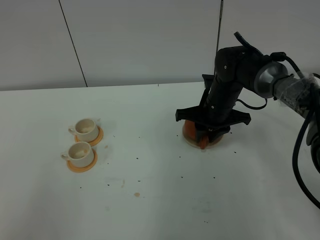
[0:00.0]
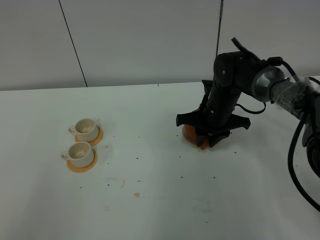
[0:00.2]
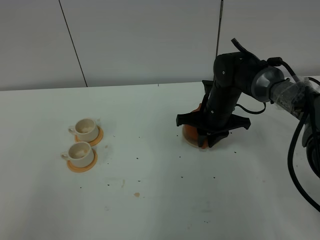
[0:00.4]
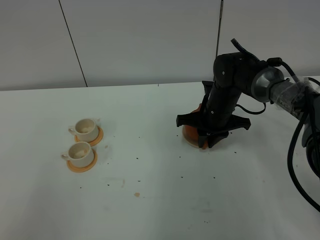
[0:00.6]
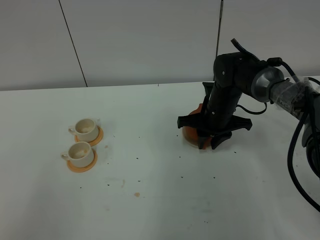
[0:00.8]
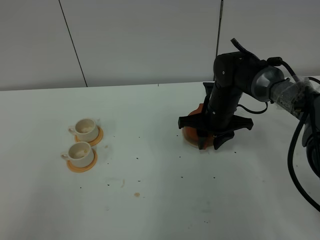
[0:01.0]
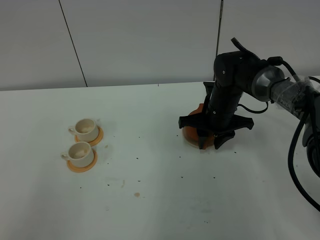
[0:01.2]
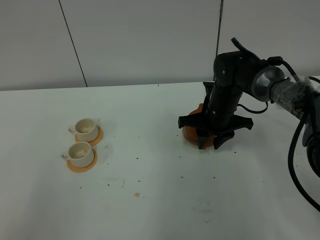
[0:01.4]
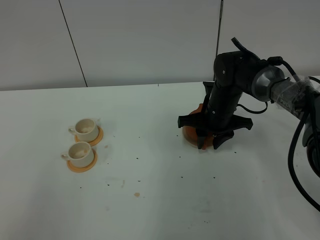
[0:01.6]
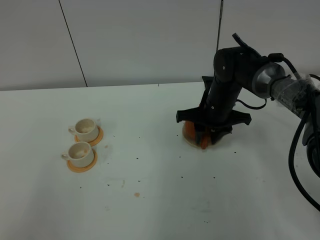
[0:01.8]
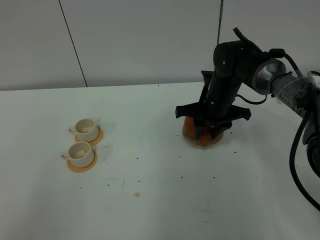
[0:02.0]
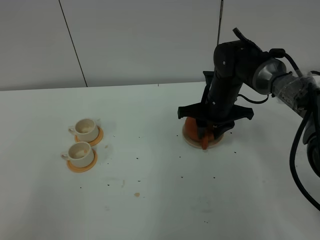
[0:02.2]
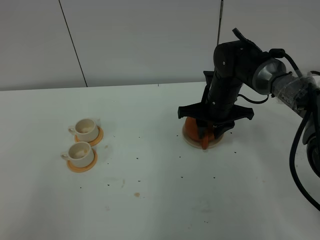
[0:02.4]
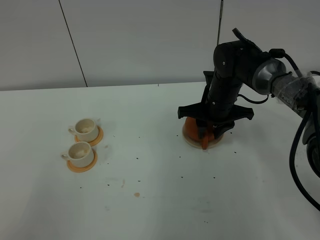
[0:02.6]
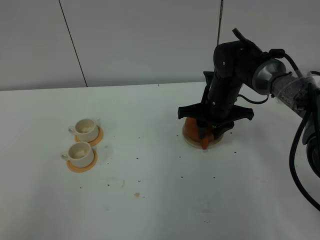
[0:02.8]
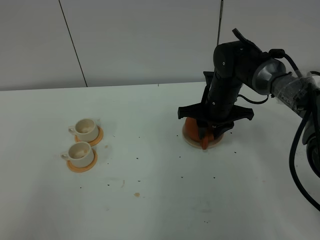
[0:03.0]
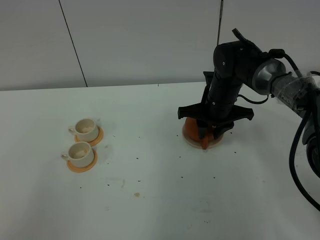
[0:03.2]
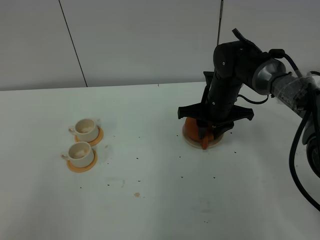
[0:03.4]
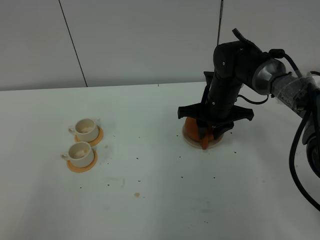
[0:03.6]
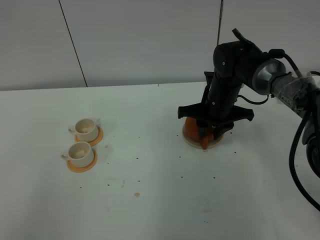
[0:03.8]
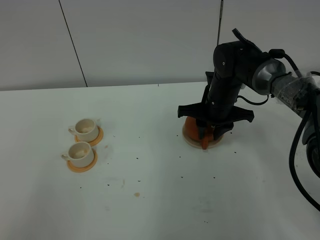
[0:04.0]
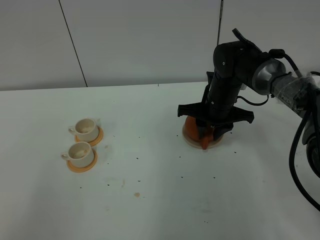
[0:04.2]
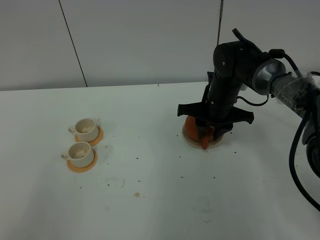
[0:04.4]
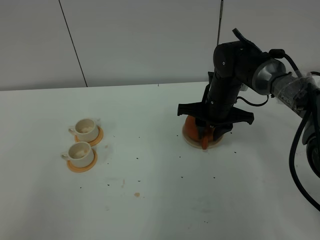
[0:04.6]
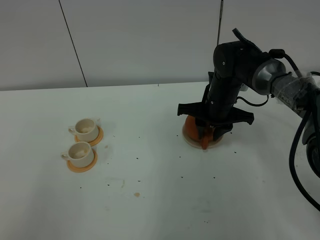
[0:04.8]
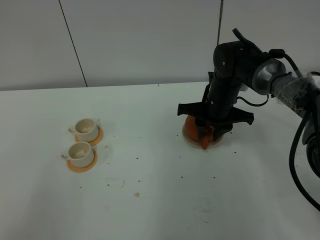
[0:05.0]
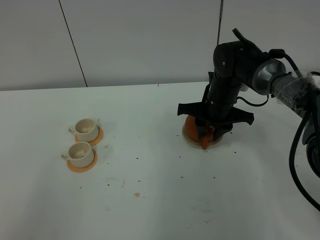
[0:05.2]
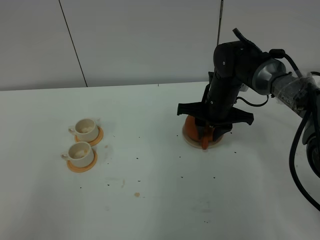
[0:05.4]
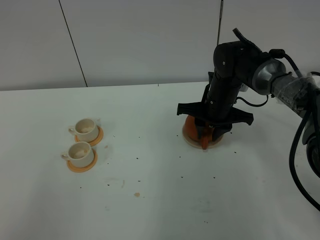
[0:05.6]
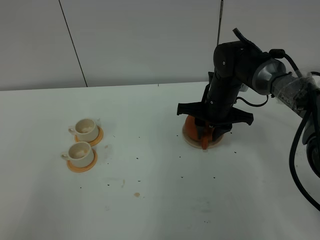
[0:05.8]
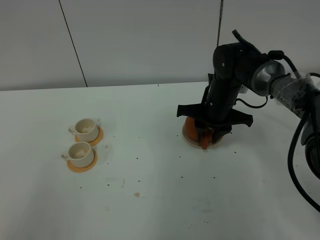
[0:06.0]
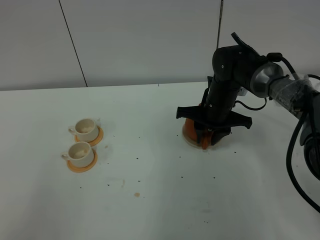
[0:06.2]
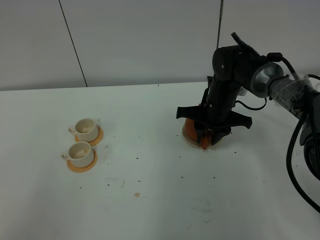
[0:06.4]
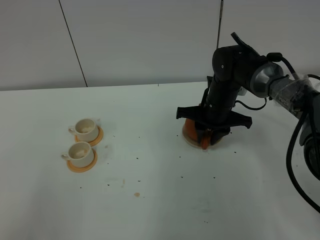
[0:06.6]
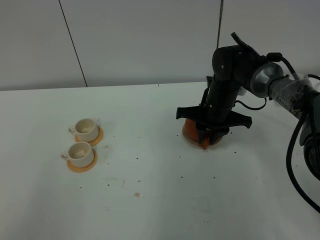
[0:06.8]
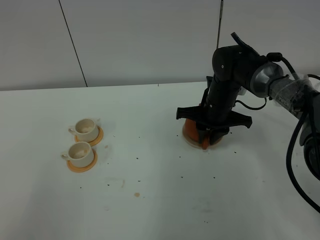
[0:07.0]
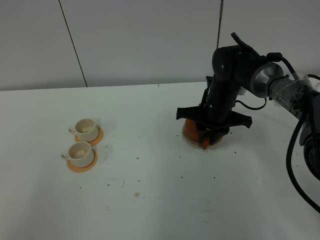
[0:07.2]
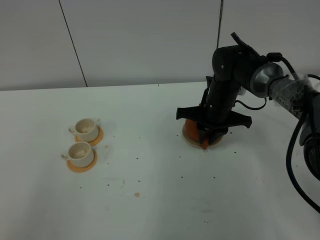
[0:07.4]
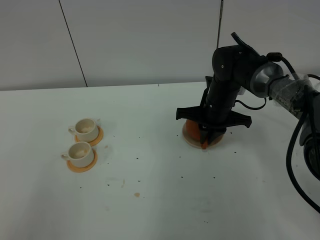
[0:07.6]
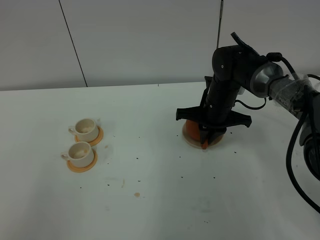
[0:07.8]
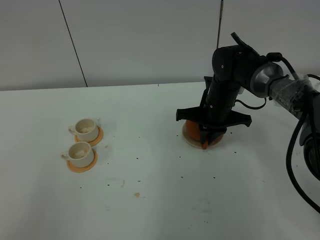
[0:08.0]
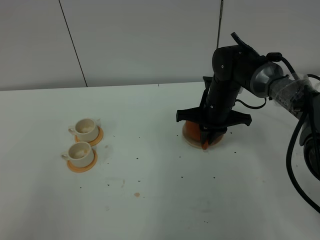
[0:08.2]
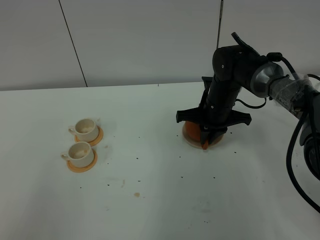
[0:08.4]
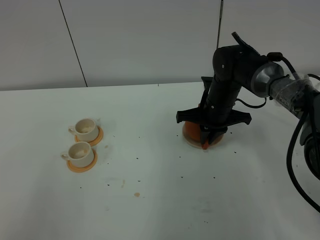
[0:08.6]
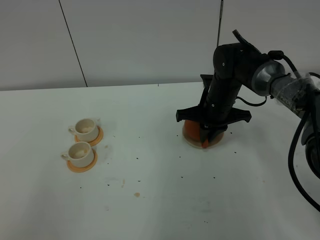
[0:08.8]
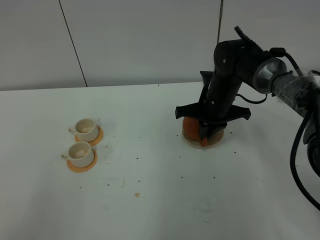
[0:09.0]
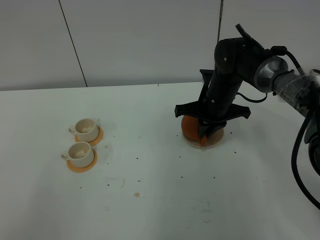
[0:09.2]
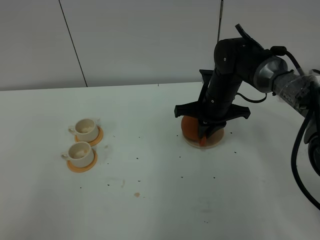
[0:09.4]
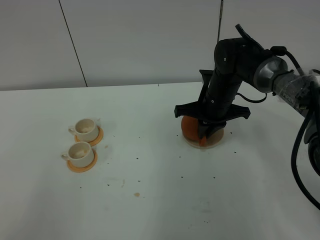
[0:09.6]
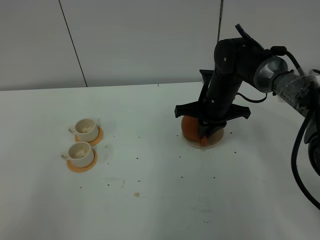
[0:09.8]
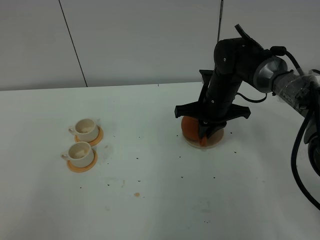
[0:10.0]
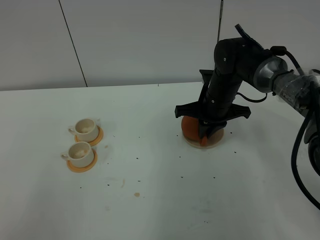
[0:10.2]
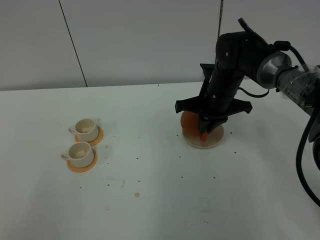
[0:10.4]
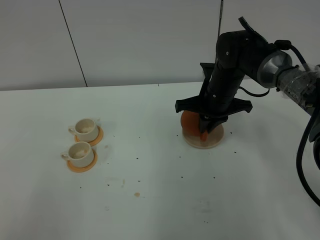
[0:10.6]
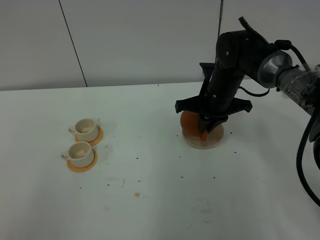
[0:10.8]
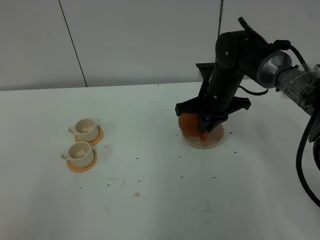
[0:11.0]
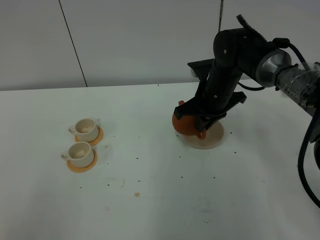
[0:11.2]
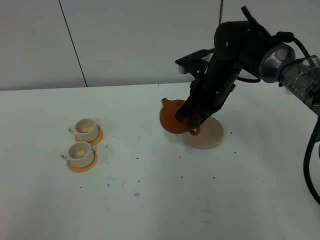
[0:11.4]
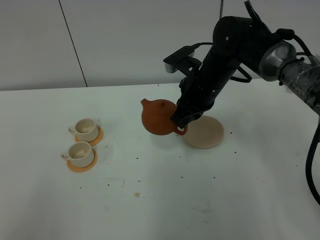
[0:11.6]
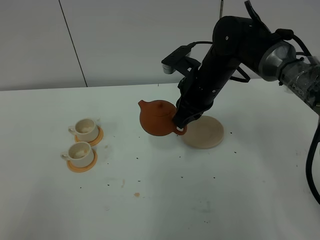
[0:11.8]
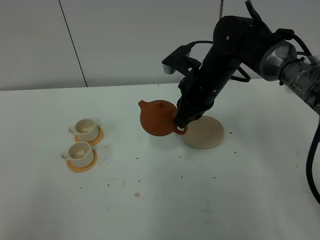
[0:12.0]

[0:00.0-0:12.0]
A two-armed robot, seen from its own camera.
Task of the whole recording: grasp the brown teapot and pour the tea into the two white teacups one by one, put the brown teapot back in its original place.
Step, 0:00.0 to 0:11.0: Pick up the teapot with the right gripper.
0:00.0 to 0:01.6: Both grippers stay put.
0:01.6 to 0:03.0: The grippers make only small movements.
0:04.4 to 0:06.0: Both grippers stay put.
0:06.0 to 0:07.6: The right gripper closes.
0:07.6 to 0:10.4: The grippers stay close to where they were, moving slightly.
0:10.4 to 0:12.0: The right gripper changes place by approximately 5 cm.

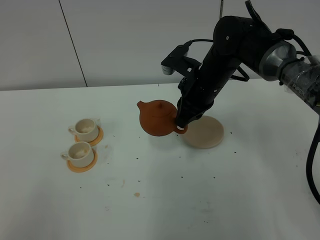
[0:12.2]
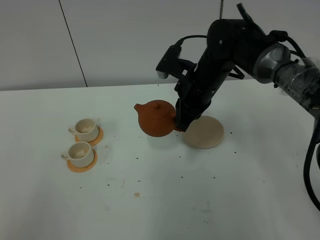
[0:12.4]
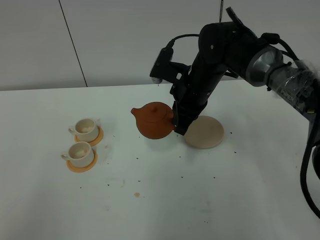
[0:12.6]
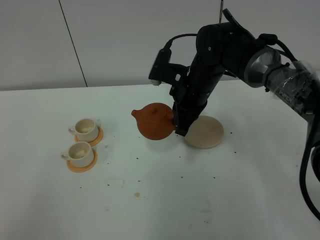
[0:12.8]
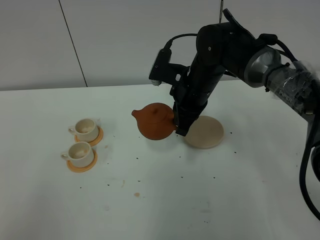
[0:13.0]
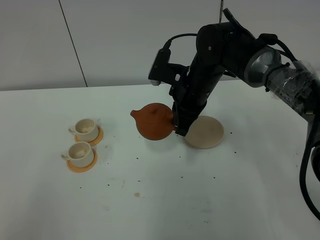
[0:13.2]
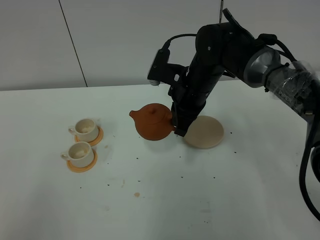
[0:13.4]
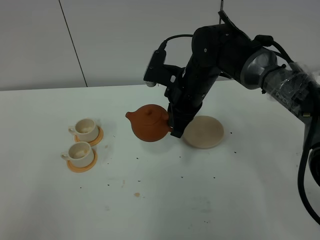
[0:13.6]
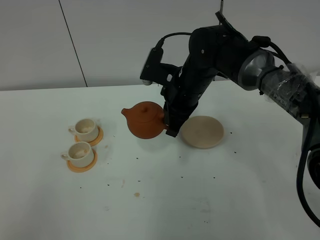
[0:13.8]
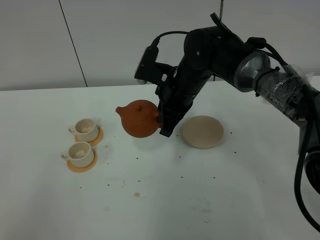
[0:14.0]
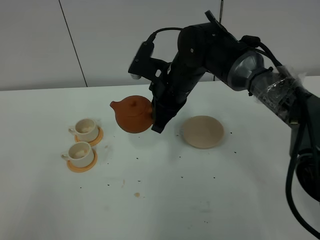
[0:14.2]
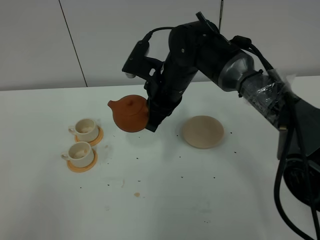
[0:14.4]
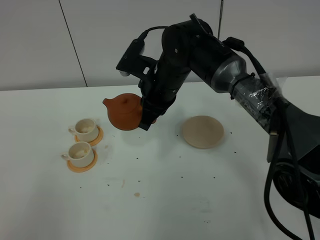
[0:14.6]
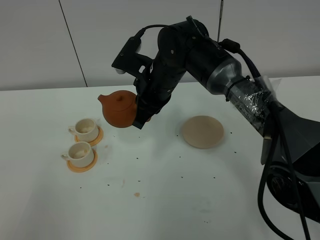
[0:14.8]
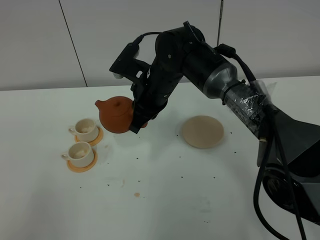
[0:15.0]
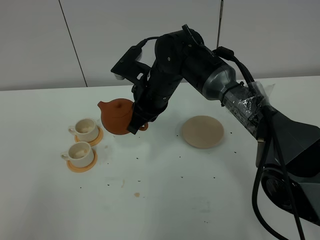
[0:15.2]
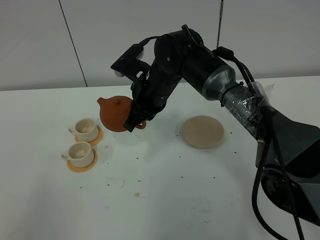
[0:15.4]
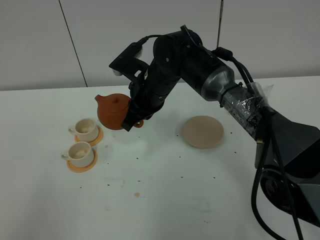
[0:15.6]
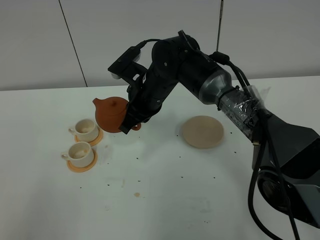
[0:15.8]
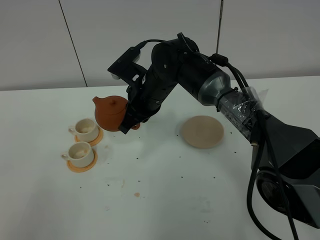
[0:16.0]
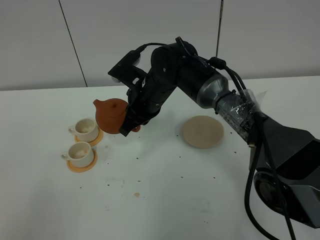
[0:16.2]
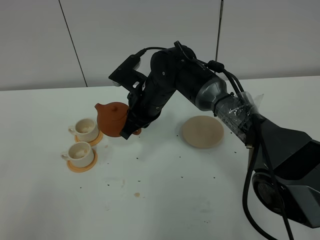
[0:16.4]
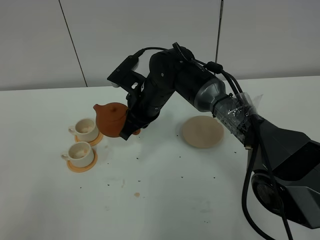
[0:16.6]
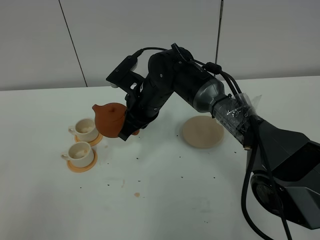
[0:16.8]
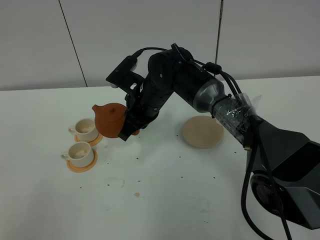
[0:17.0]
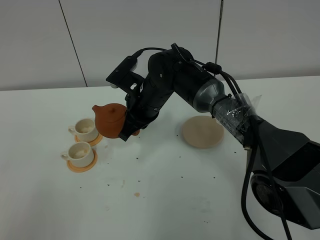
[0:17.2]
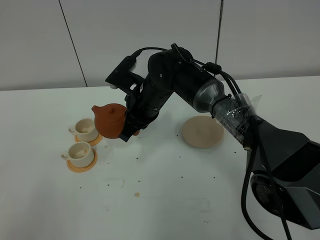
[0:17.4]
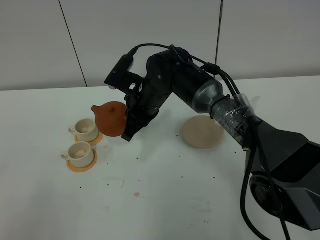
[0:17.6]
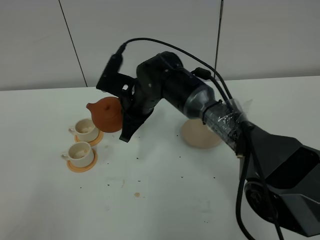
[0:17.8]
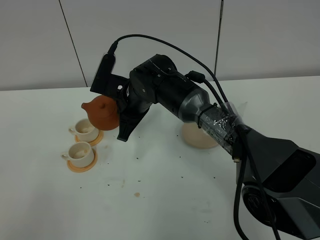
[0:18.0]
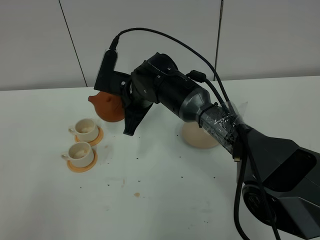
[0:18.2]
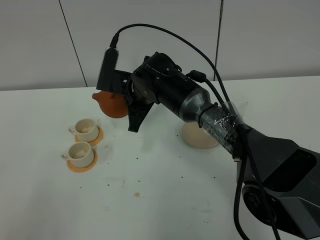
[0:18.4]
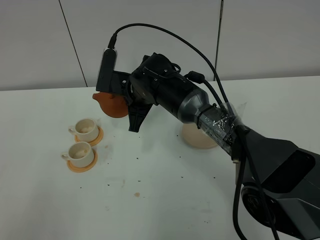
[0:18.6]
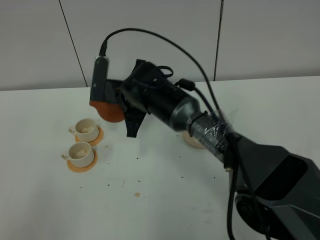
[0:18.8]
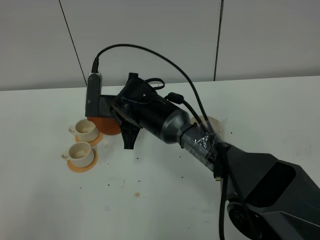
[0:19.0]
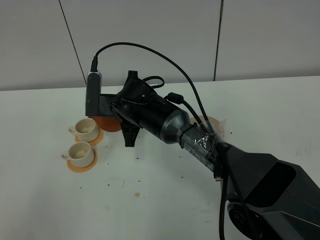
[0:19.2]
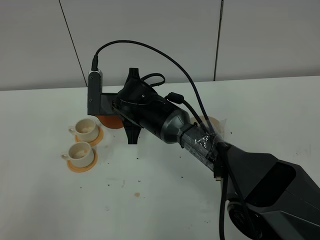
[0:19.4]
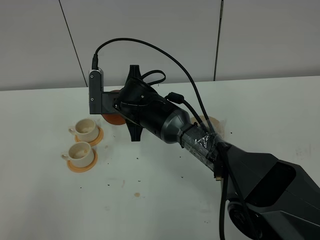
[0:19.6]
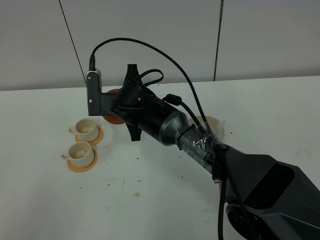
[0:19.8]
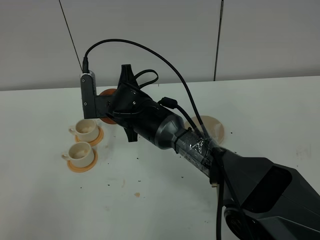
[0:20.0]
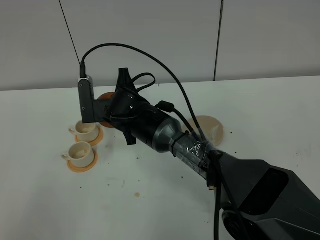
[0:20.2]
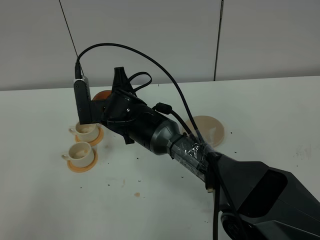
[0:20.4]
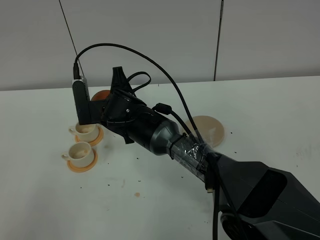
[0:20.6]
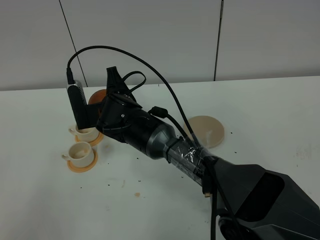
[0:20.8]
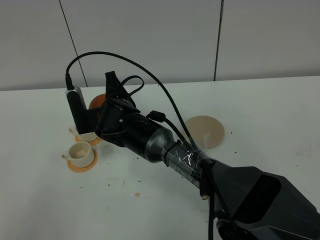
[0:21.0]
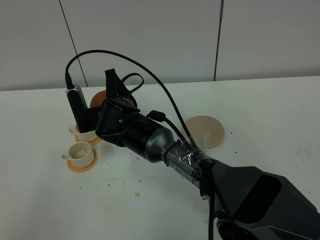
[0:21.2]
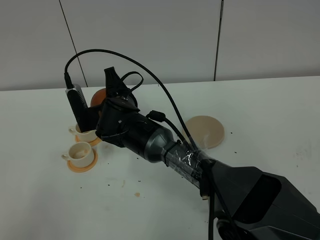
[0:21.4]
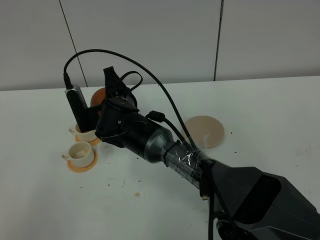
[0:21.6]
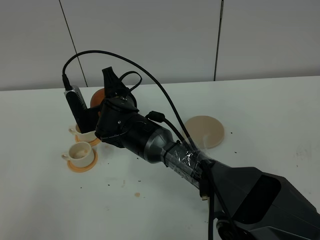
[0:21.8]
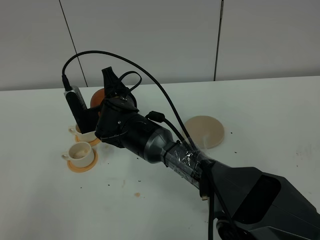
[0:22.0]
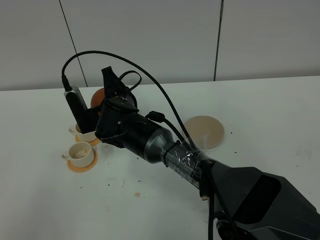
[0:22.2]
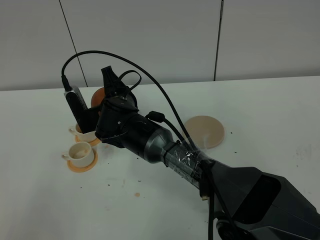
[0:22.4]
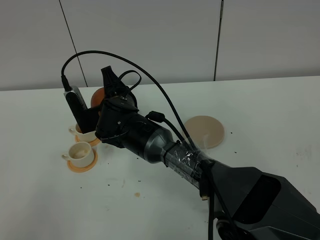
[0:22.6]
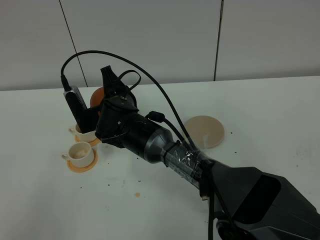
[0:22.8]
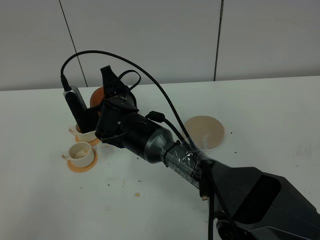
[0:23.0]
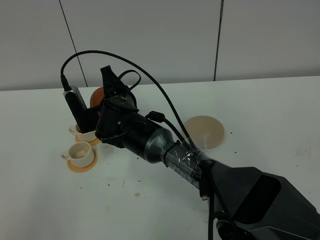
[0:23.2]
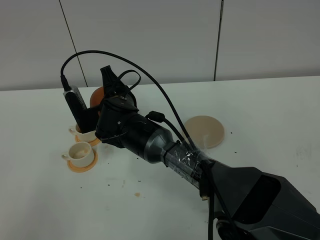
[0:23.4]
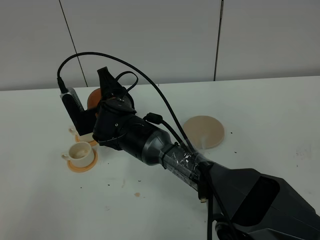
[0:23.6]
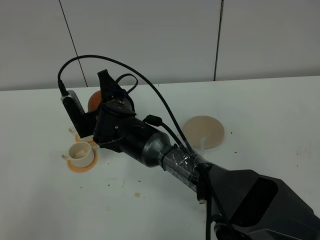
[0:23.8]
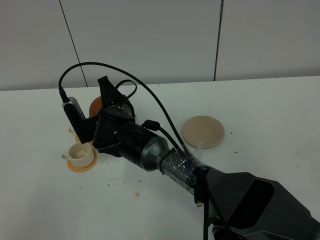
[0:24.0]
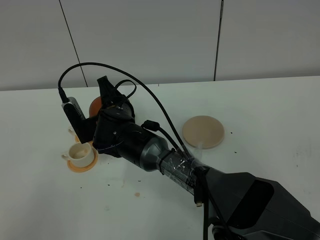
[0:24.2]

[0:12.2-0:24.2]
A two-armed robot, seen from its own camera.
Task of the whole recording: grasp the brown teapot and pour the tea into the two white teacups one by one, put the brown teapot back in its original place.
0:12.2 to 0:13.8: There are only small adjustments of the grippers.
0:13.8 to 0:15.2: The right gripper heads to the left, covering roughly 5 cm.
0:15.2 to 0:16.6: The grippers move only a little.
0:19.8 to 0:21.2: The grippers stay close to where they were, moving slightly.
0:21.2 to 0:24.2: There are only small adjustments of the grippers.
